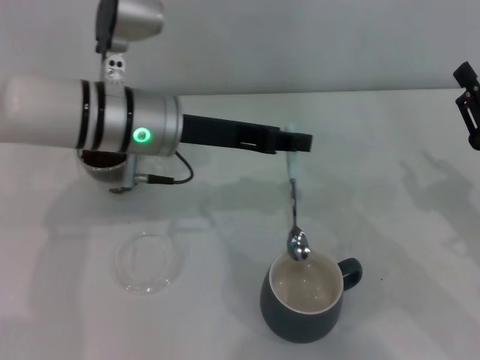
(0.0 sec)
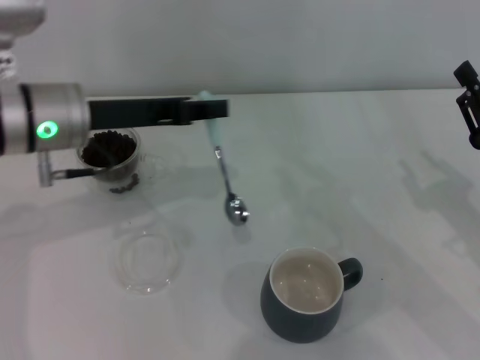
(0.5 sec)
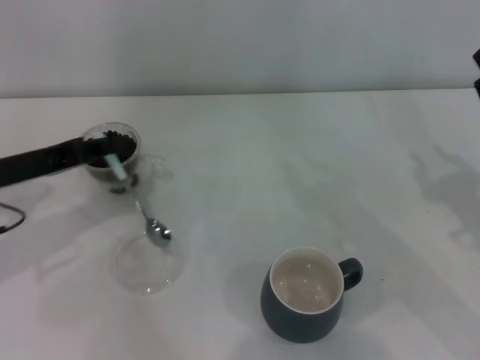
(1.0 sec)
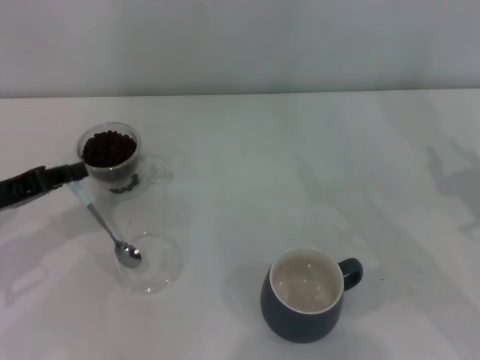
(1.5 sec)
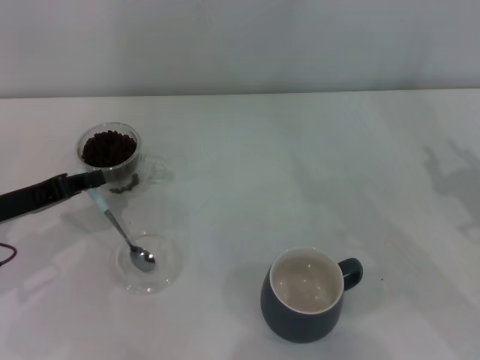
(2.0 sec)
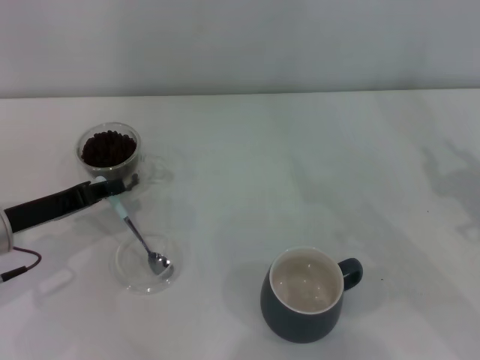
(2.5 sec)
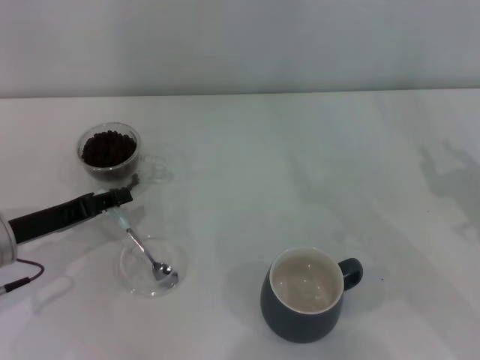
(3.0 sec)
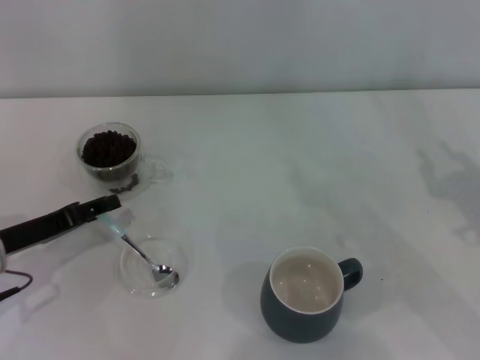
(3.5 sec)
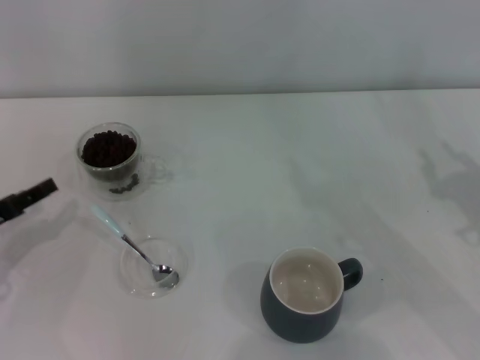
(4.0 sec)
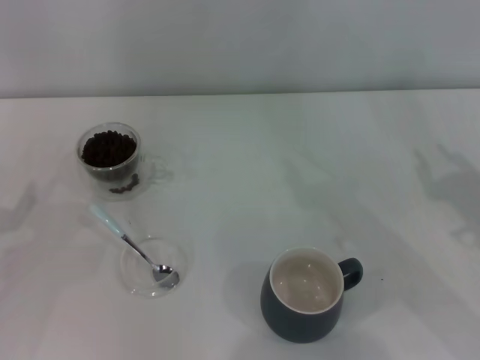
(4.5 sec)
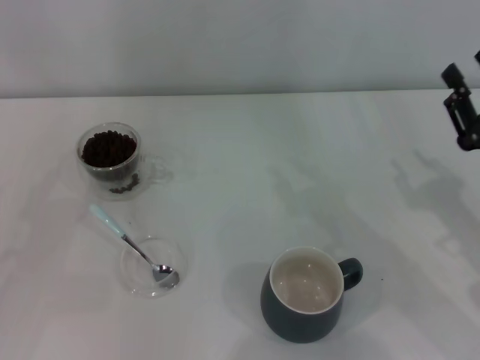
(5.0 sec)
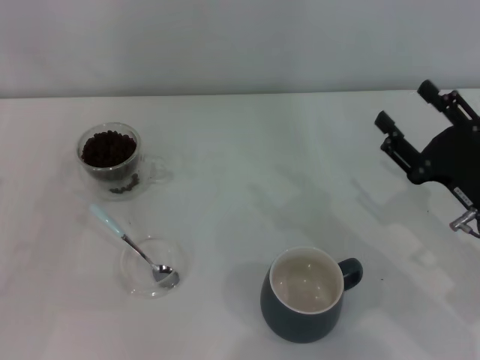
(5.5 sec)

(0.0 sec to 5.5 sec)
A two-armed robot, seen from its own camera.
Task of the whole recording: Use a blue spoon to take out the coffee beans from the glass and pour them into the gray cup.
0.0 sec - 2.0 sec: The left gripper moves to the left and downward, some 20 cm.
2.0 sec - 3.5 sec: The left gripper opens.
3.5 sec - 5.5 sec: The left gripper moves to the left, about 10 cm.

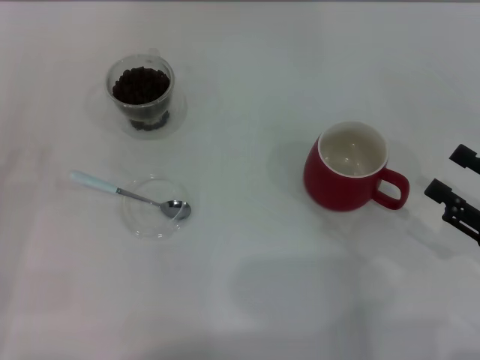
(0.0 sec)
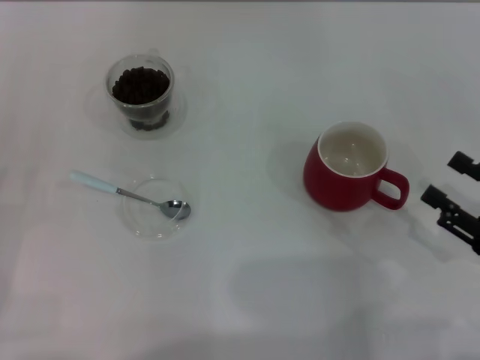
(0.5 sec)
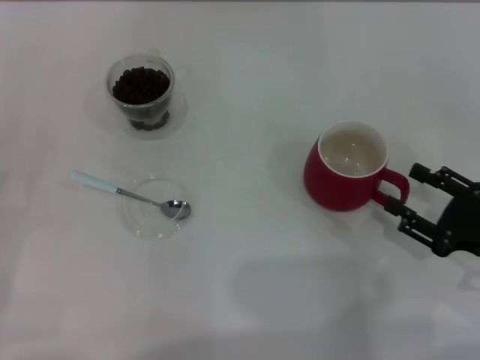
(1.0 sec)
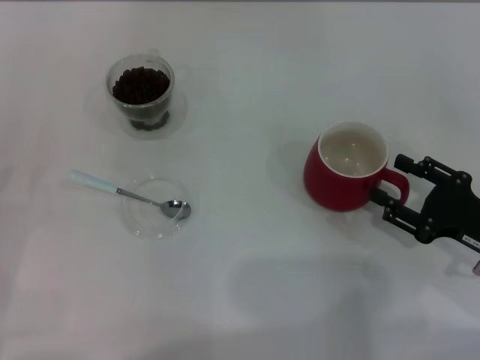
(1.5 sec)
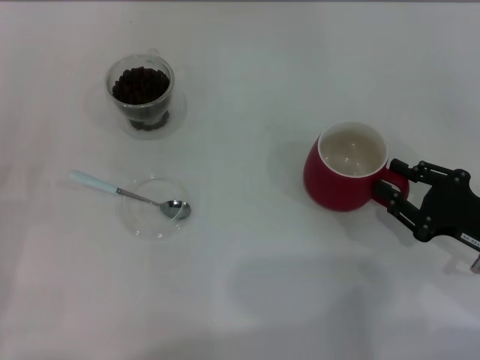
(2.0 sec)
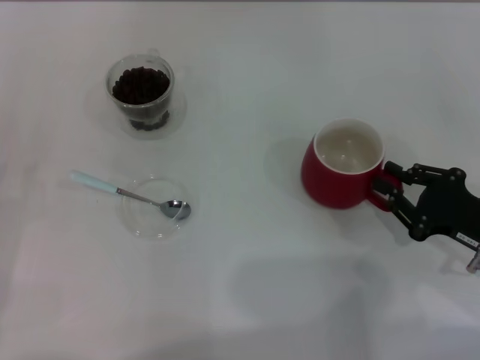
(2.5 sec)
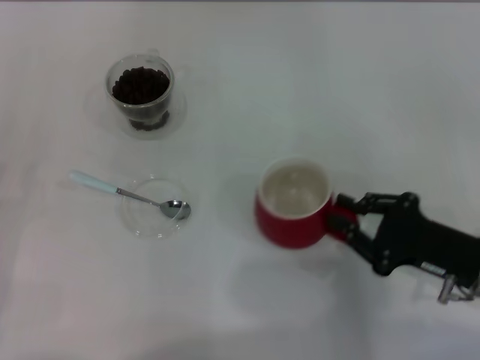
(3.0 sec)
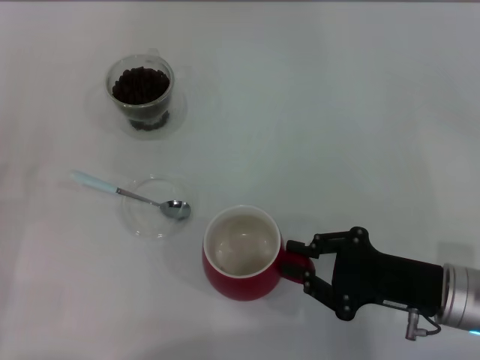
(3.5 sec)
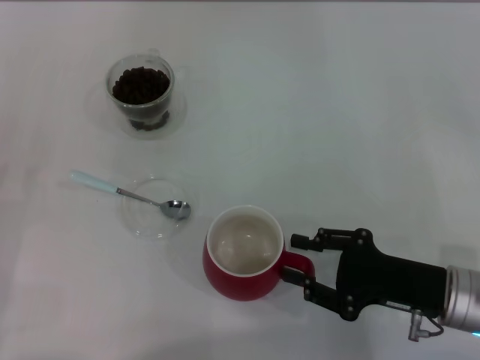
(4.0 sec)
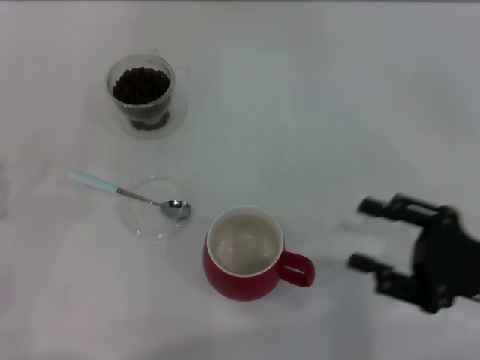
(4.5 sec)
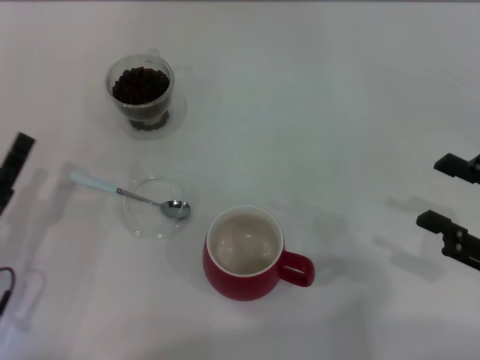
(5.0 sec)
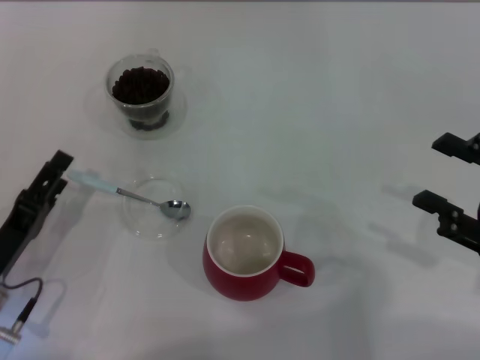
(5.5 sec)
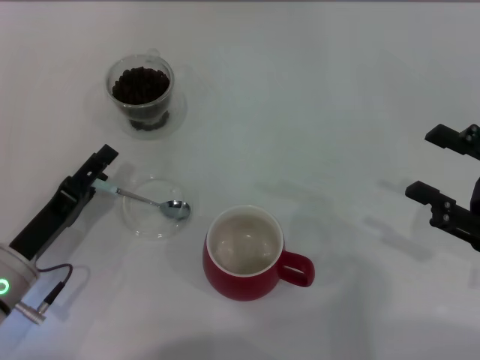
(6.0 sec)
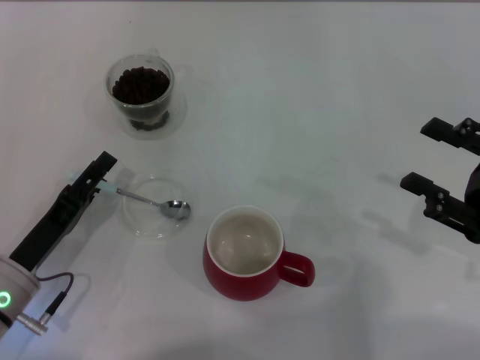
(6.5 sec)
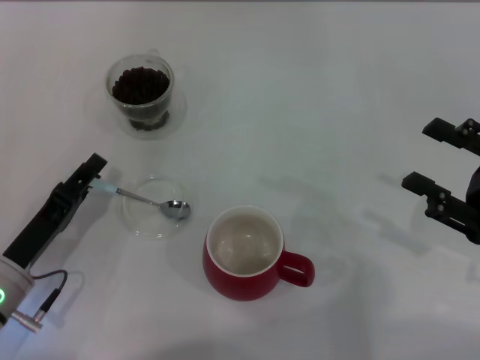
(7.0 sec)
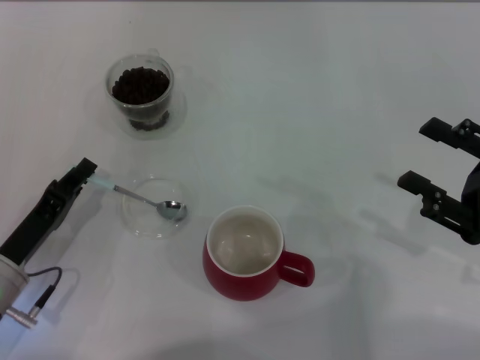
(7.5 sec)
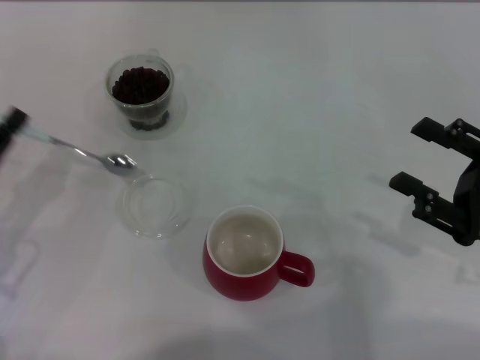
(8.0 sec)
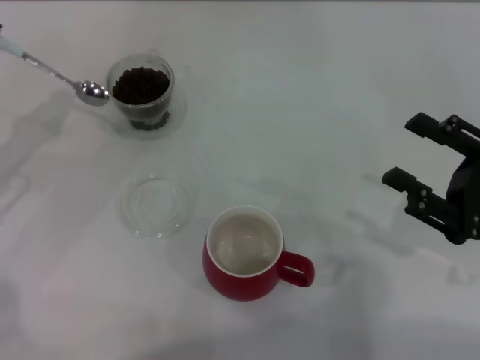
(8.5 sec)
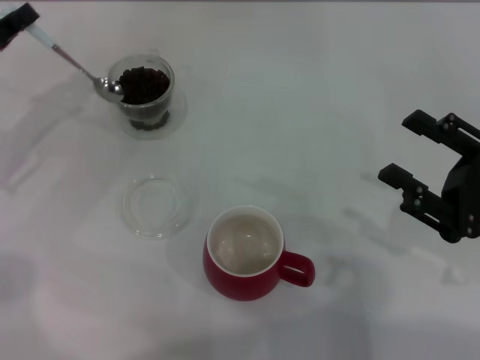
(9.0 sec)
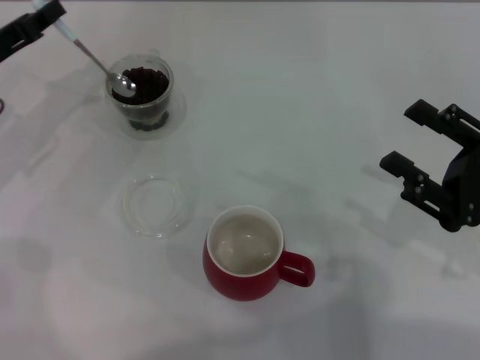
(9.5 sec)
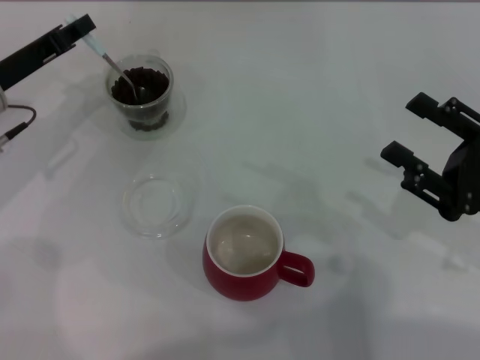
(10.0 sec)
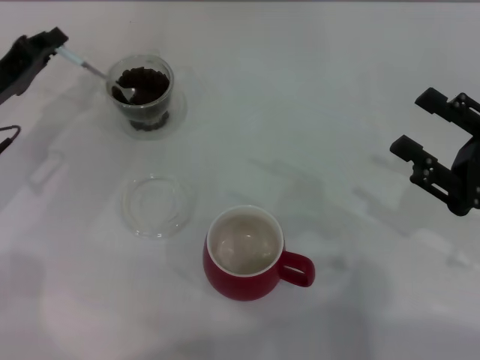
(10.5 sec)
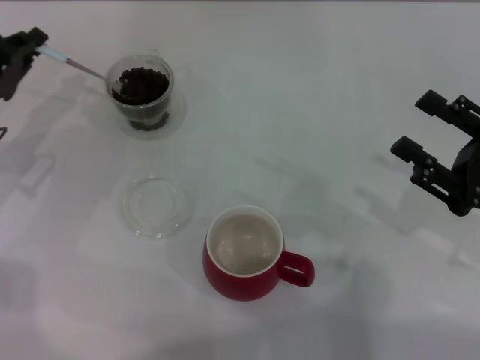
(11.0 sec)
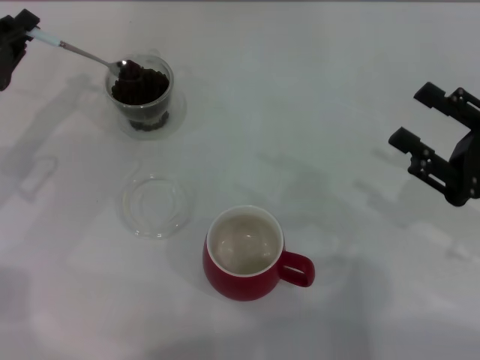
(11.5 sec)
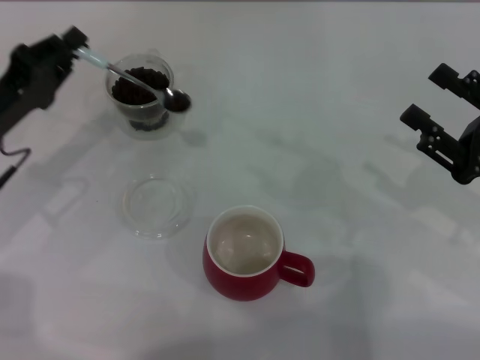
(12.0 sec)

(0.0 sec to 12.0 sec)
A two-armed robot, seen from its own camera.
Task of the whole recording: Use a blue spoon to take out the coffee beans from the glass and pour them into the red cup.
Step, 0.0 sec - 4.5 sec: Move the cup to the center of view with the left gripper.
Step, 5.0 sec - 7.5 sec: Pick up the spoon with the right gripper.
0.0 sec - 2.0 sec: The right gripper shifts by approximately 5 cm, and closes its fingers.
2.0 sec - 4.0 sec: The right gripper goes about 5 cm to the left, and closes.
4.0 sec - 6.0 sec: The right gripper moves to the right and upward, roughly 10 cm, and opens. Meanwhile the left gripper goes approximately 10 cm to the right, and opens its fingers.
6.0 sec - 8.0 sec: The left gripper travels to the left by roughly 5 cm, and closes its fingers.
8.0 sec - 10.0 sec: The left gripper shifts approximately 15 cm forward.
10.0 sec - 12.0 sec: The left gripper is displaced backward by roughly 5 cm.

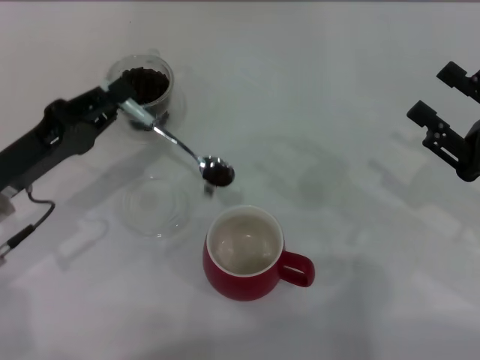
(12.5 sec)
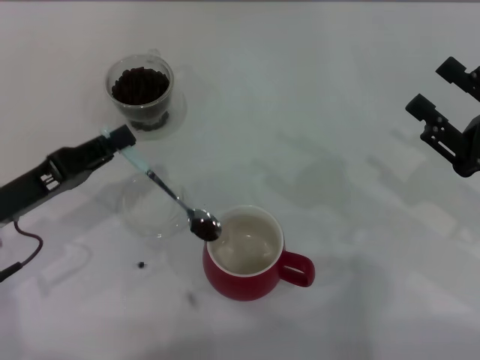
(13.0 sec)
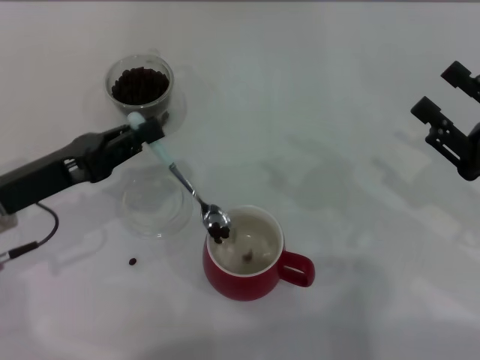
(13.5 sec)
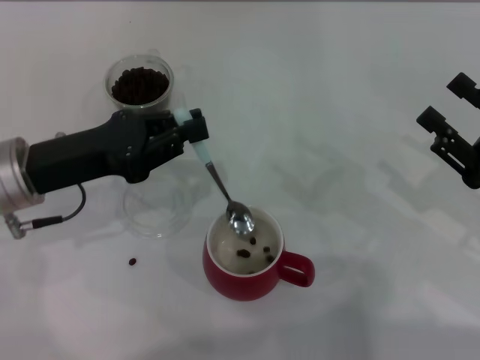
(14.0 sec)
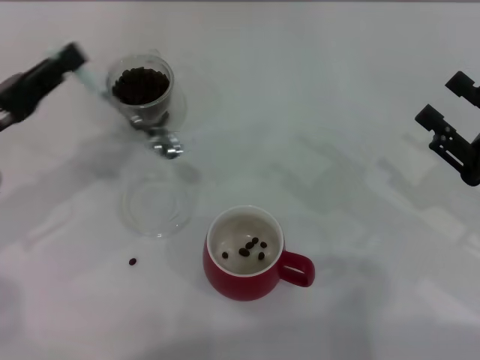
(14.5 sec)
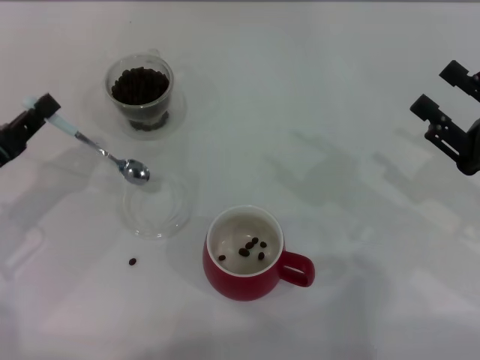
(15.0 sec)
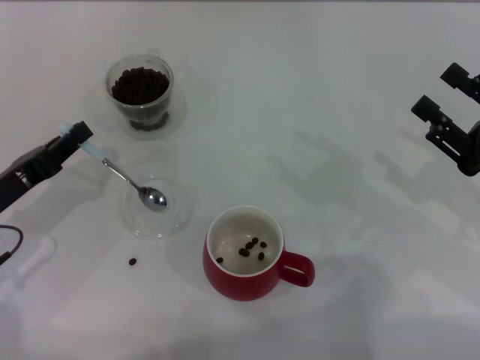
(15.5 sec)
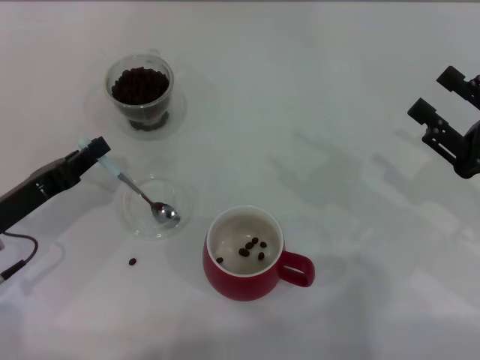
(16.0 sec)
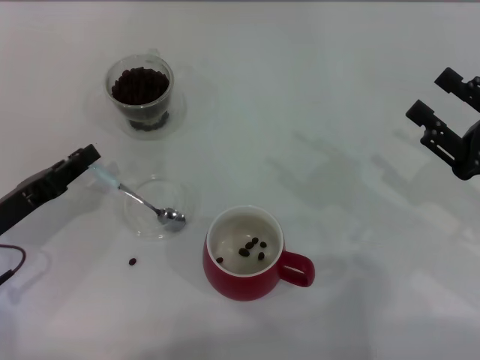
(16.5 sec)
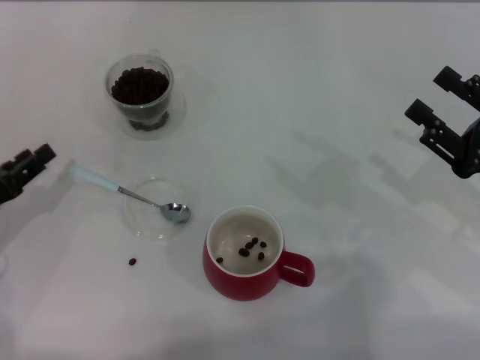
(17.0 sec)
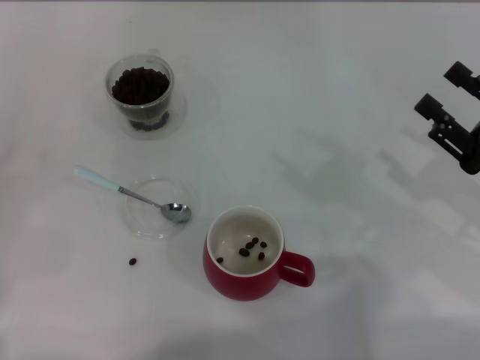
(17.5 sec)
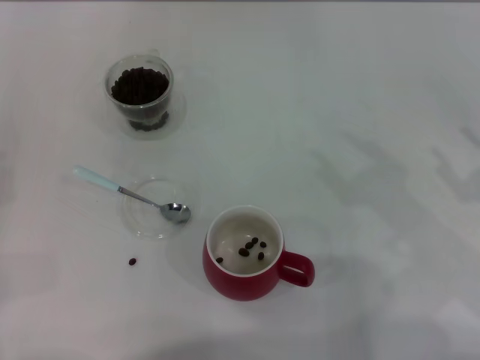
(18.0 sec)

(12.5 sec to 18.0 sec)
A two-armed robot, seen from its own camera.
Task of the whole recording: Use a blue spoon to take out the coffee beans from the glass and pour them into the red cup.
Step, 14.5 sec - 16.5 sec: Place the spoon back in its original place with the right gripper.
14.5 sec - 16.0 sec: The left gripper heads downward, covering roughly 5 cm.
16.0 sec - 18.0 sec: The left gripper moves to the left, about 10 cm, and opens.
